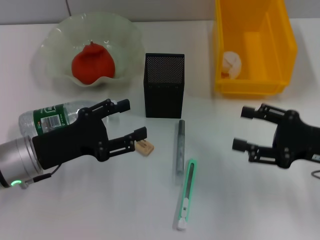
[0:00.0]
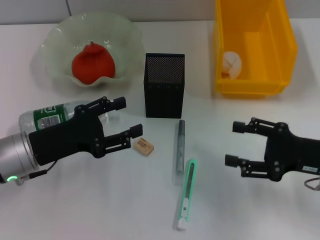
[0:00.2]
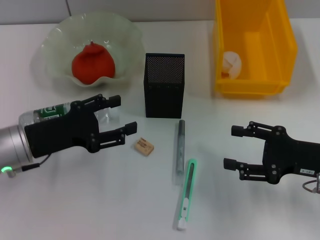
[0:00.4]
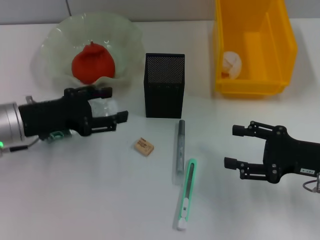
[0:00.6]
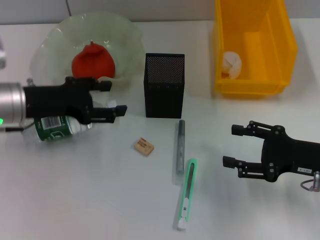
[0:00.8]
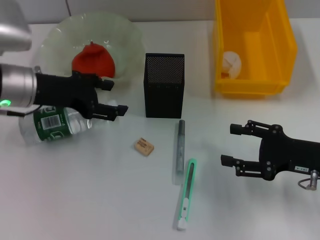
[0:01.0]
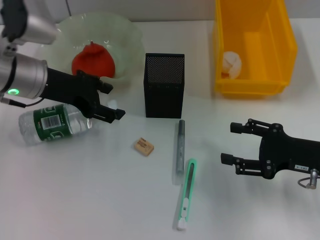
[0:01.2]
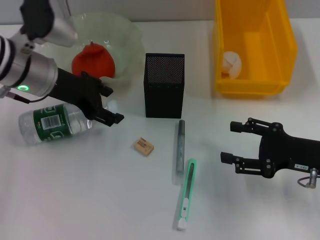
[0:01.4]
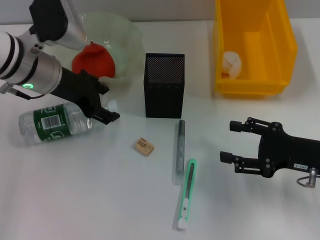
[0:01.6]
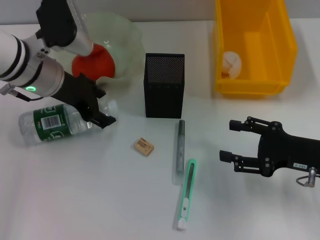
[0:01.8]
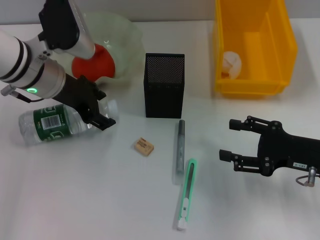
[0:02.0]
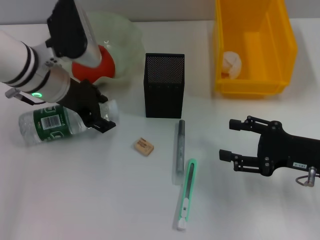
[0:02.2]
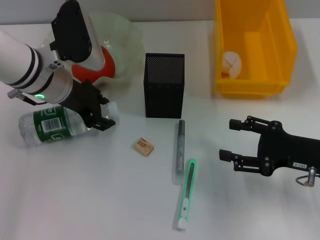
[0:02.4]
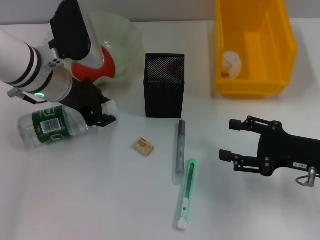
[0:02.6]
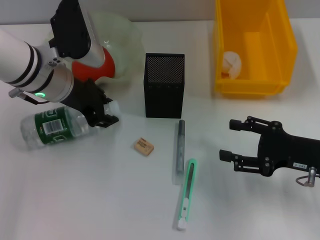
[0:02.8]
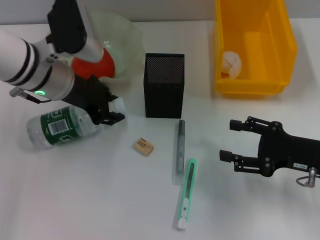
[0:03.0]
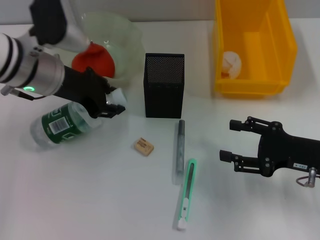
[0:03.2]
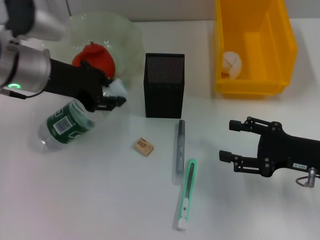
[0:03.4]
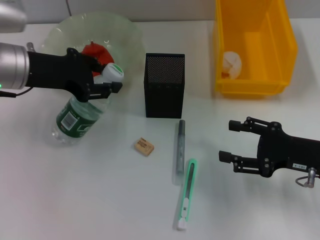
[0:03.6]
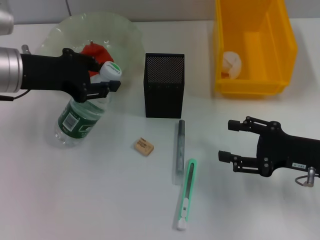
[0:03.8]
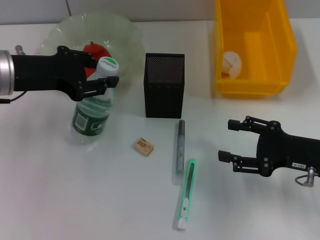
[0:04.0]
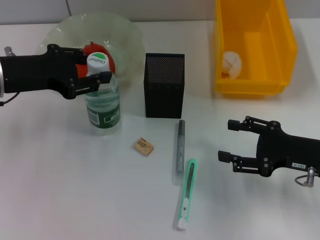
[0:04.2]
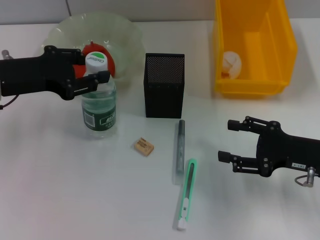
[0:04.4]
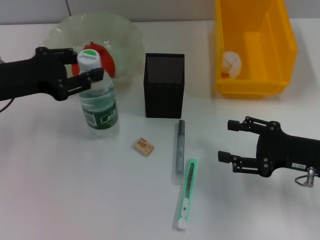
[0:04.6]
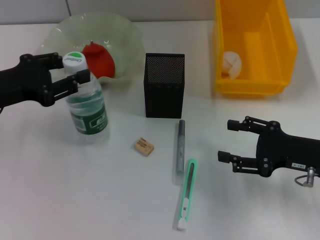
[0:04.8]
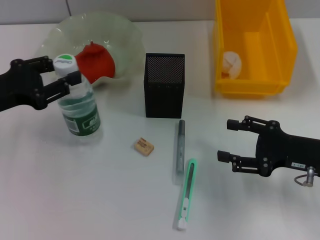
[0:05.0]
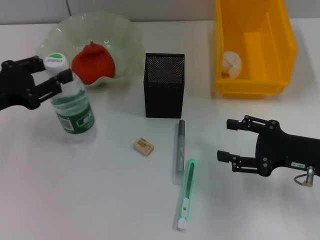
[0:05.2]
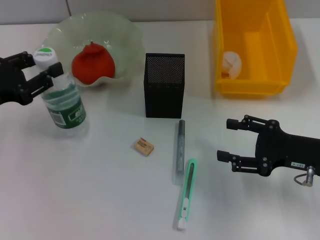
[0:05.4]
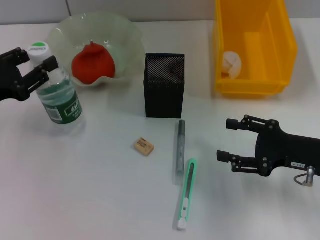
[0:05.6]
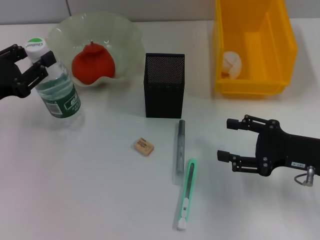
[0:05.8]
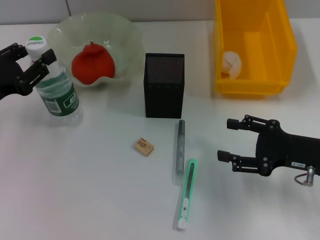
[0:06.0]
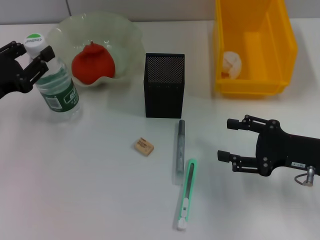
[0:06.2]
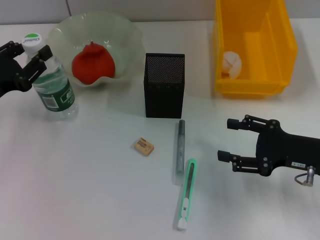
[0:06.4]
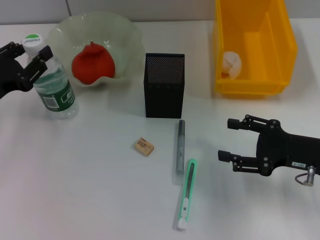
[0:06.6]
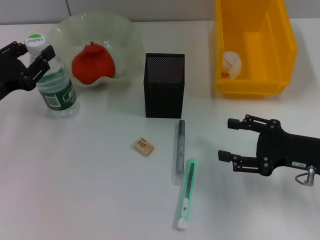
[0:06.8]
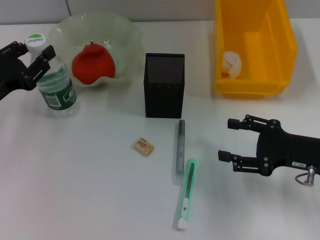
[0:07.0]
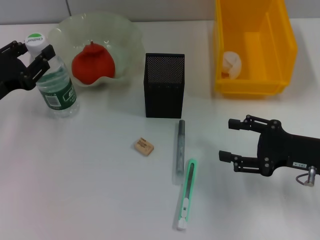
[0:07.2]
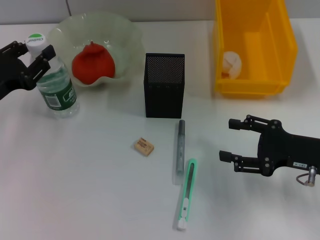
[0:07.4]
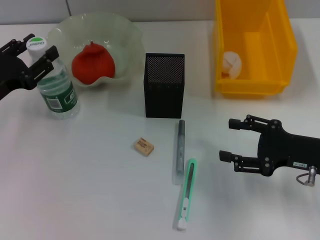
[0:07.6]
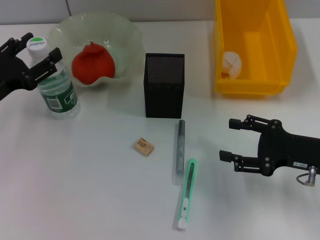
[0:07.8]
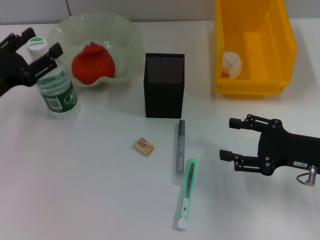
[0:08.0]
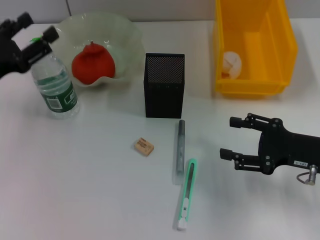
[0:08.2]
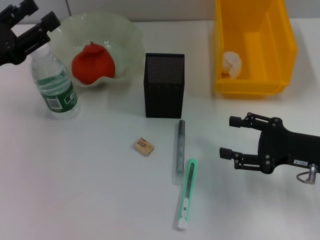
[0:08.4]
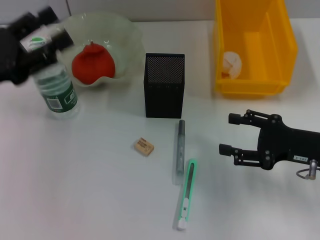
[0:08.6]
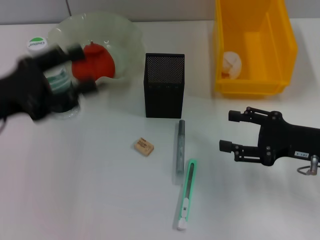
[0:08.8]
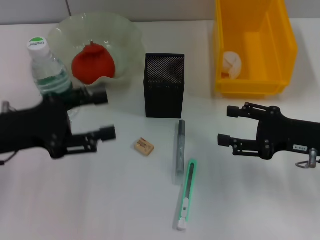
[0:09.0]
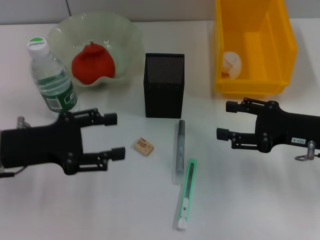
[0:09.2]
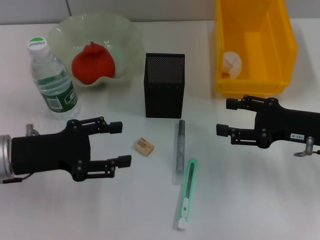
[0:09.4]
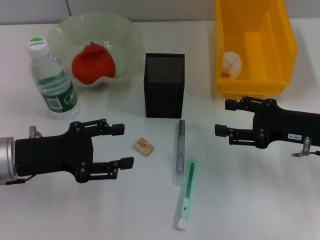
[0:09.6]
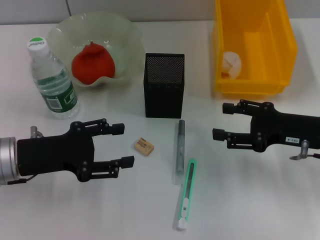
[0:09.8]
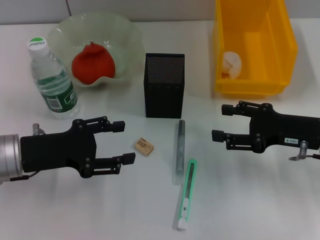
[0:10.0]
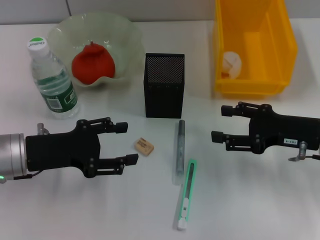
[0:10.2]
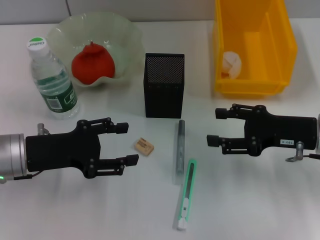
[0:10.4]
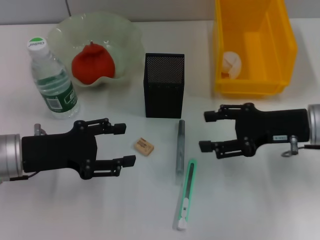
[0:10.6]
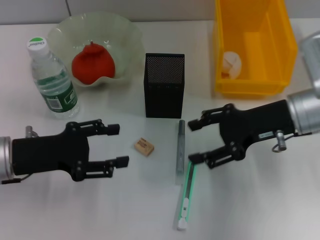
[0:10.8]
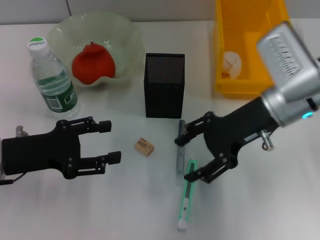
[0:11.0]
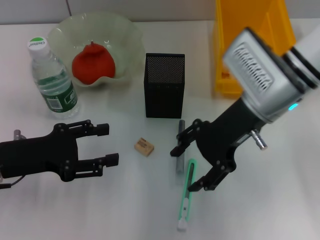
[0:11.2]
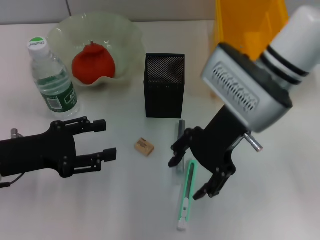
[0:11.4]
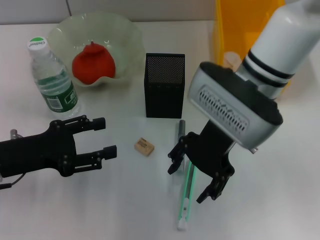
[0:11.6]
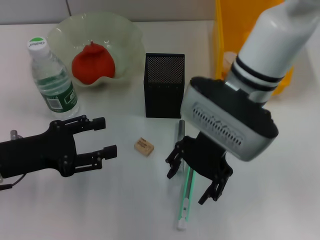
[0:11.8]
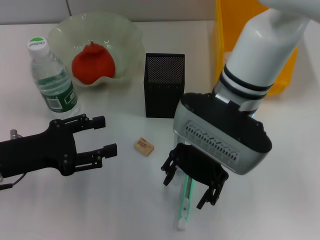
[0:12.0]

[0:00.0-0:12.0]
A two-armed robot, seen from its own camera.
Step, 0:00.0 to 0:02.6: Grab the water bottle with the left hand.
Step, 0:02.8 to 0:07.8: Place the water bottle on the table with the left hand.
0:00.0 to 0:01.6: The left gripper shifts about 15 cm forward and upward.
0:01.6 to 0:03.0: The left gripper closes up.
0:03.0 to 0:04.4: The left gripper goes roughly 10 cm to the left.
0:04.4 to 0:06.0: The left gripper moves downward, some 5 cm.
0:06.0 to 0:07.6: The grippers move only a little.
0:07.6 to 0:09.0: The left gripper changes place by some 5 cm.
0:09.0 to 0:10.4: The grippers move only a little.
0:10.4 to 0:12.0: The right gripper goes roughly 20 cm to the left and upward.

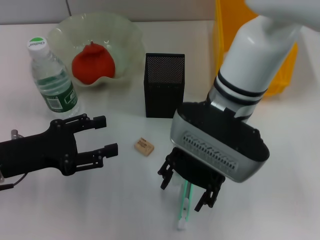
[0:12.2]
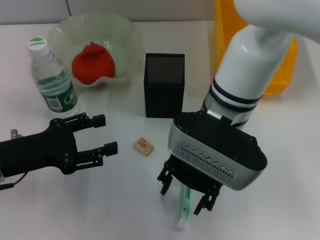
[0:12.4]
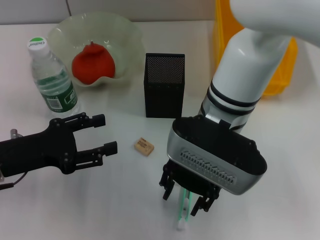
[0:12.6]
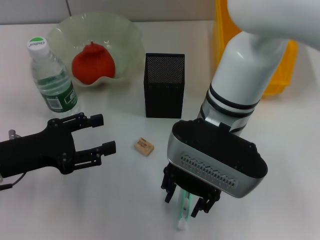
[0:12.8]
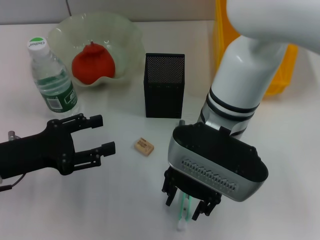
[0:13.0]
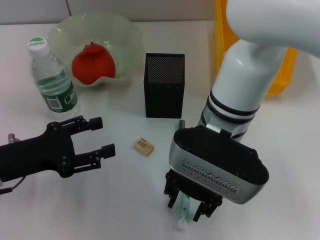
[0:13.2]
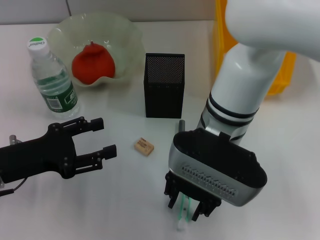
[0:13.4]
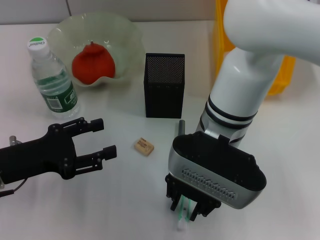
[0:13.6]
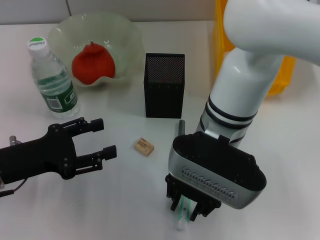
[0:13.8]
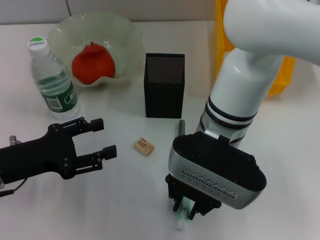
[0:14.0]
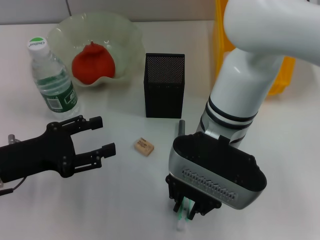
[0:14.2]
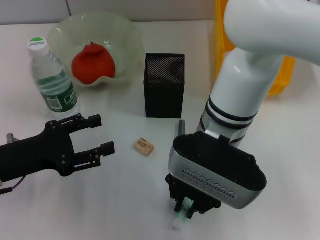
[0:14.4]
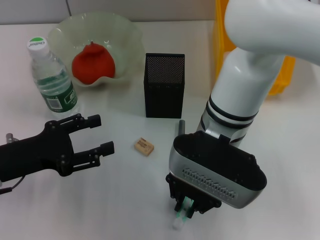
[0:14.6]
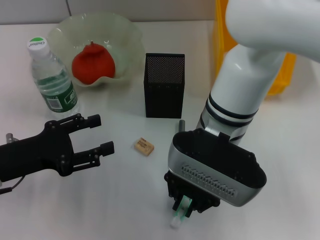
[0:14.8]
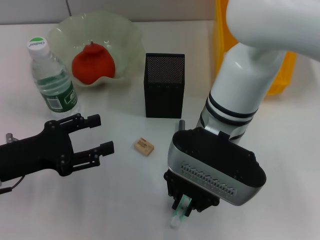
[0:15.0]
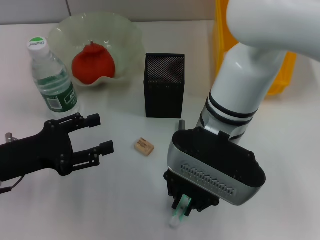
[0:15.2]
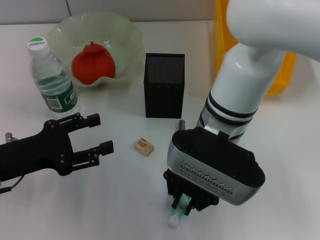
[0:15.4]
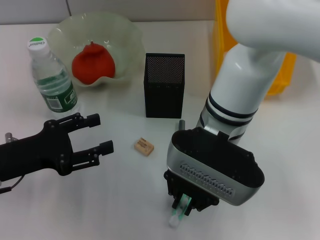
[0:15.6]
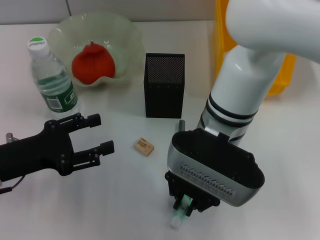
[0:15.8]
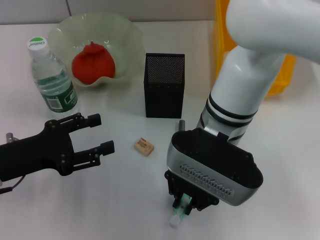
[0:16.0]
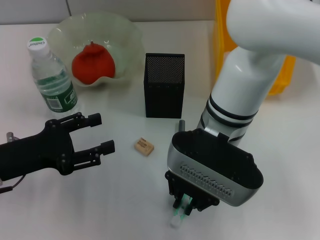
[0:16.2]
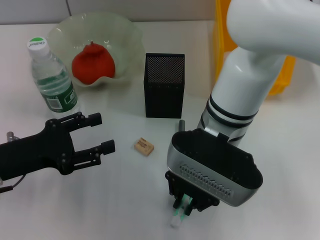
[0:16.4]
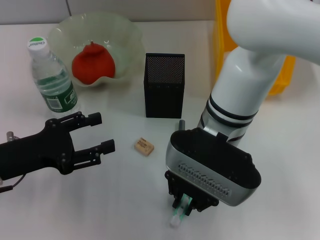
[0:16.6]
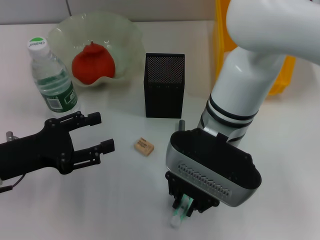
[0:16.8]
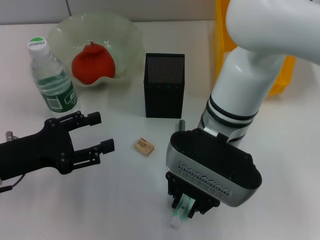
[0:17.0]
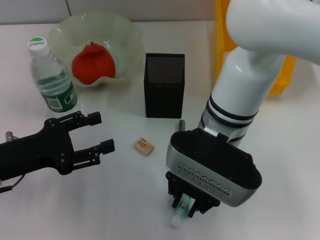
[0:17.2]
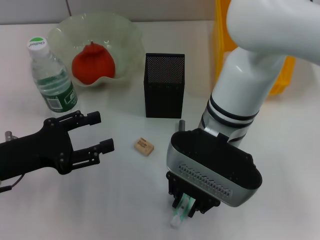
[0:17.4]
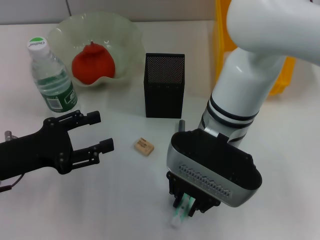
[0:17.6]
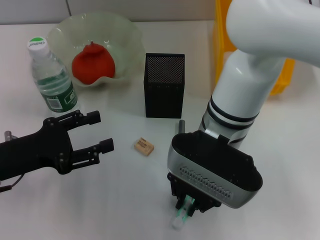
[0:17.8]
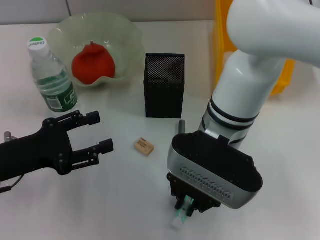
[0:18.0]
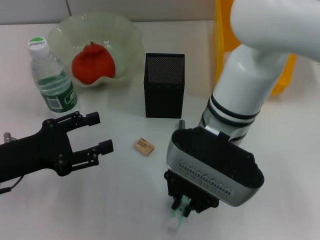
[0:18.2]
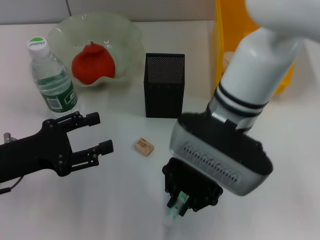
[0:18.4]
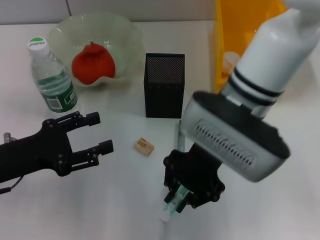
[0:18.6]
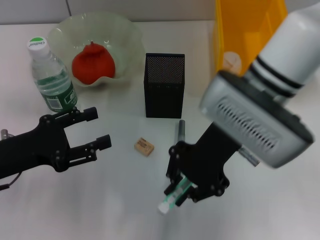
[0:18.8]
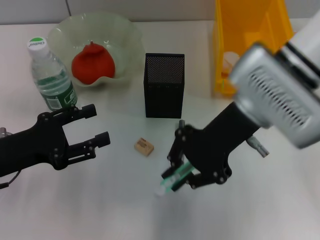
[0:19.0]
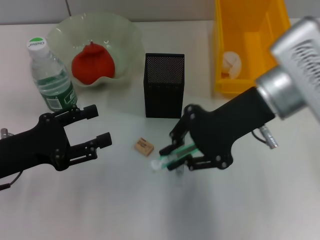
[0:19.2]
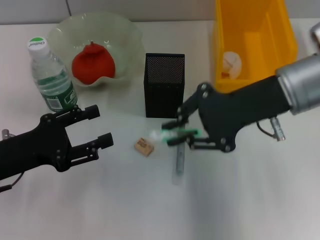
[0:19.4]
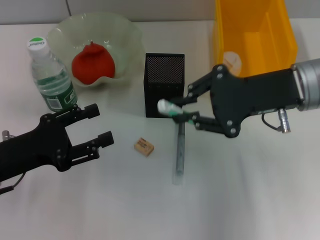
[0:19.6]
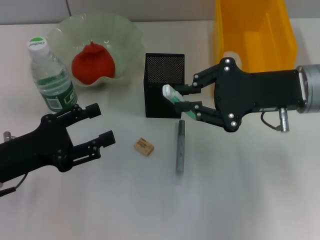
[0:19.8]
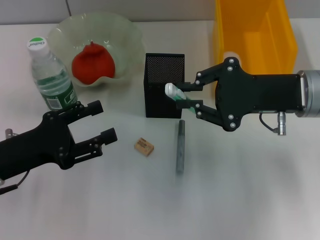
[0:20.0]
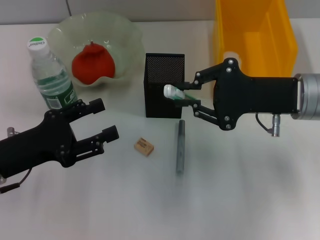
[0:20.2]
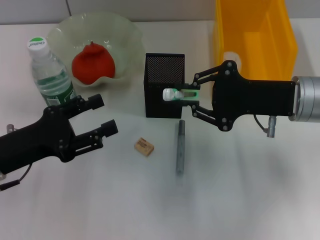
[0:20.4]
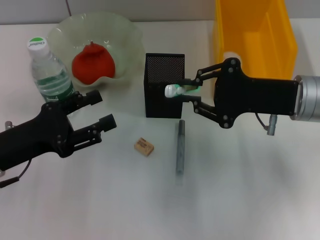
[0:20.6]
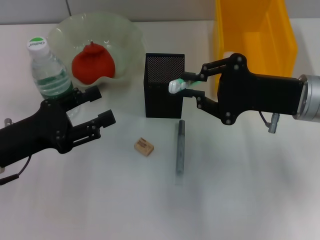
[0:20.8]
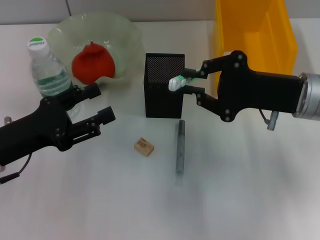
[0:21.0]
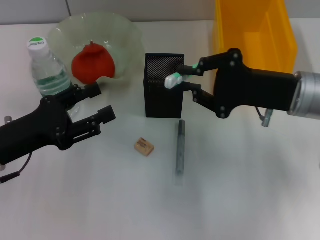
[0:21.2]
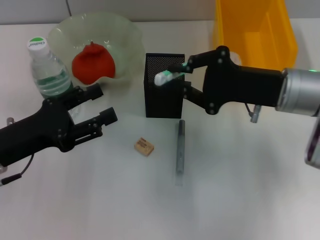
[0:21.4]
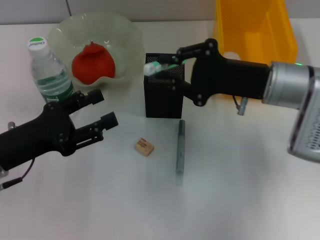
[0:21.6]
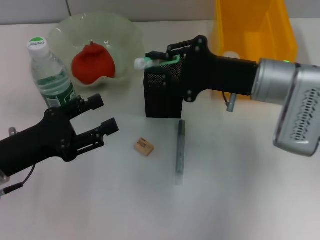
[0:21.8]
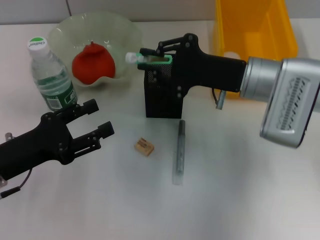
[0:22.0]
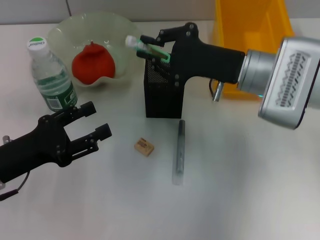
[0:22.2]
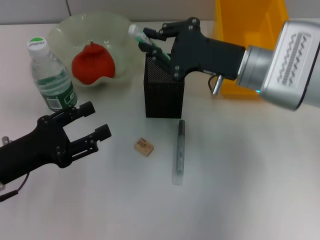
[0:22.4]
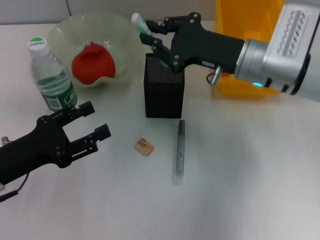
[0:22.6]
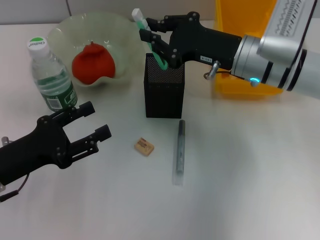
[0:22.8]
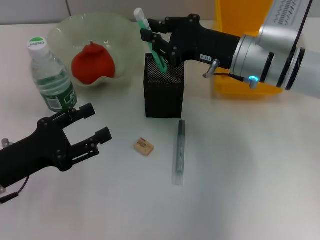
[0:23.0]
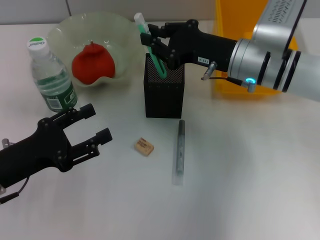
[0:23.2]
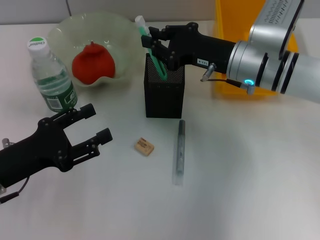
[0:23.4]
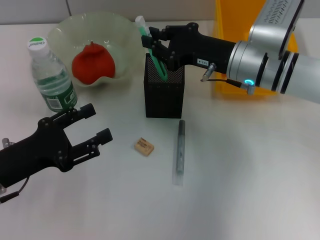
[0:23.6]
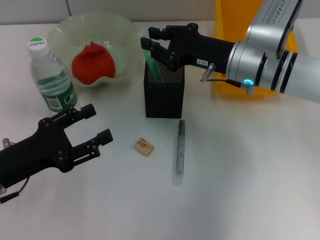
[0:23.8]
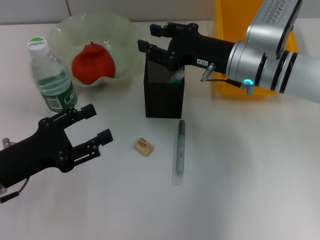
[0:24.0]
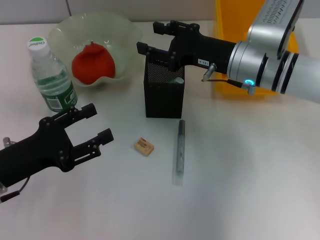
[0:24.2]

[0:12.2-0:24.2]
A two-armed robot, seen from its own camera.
Step, 0:12.2 to 0:14.4: Grab the blue utility knife with the right hand.
Step, 0:14.8 to 0:24.0: Place the blue utility knife into the pen holder with the right hand.
0:12.2 to 0:13.8: The right gripper closes.
0:13.8 to 0:18.2: Neither gripper changes place.
0:18.2 to 0:19.8: The right gripper goes about 15 cm to the right.
0:21.2 to 0:22.6: The right gripper is displaced to the left and forward by about 10 cm.
0:22.6 to 0:24.2: The right gripper opens up.
